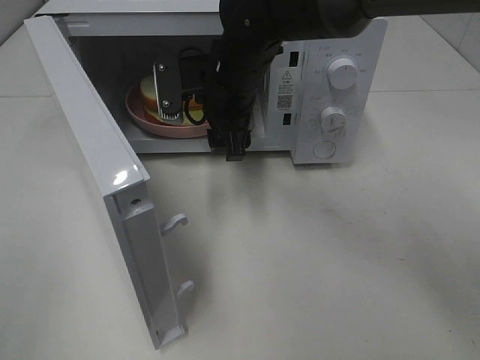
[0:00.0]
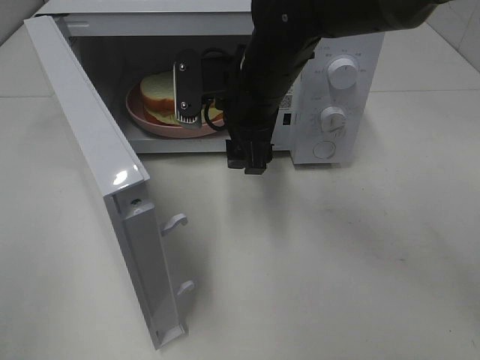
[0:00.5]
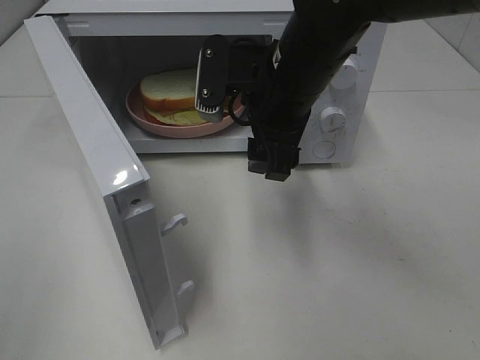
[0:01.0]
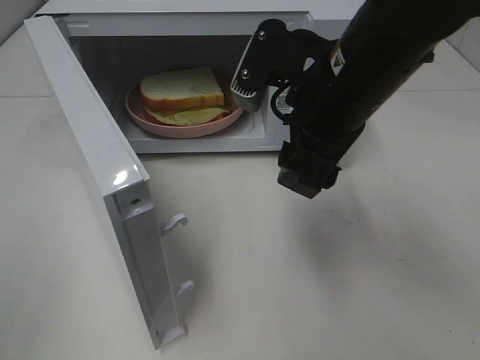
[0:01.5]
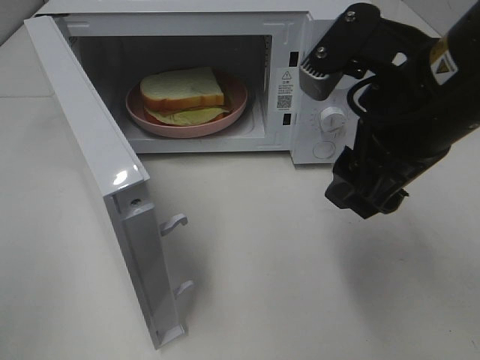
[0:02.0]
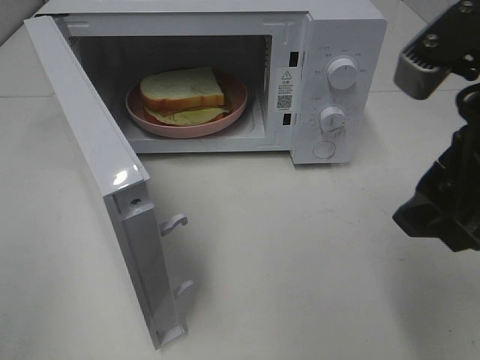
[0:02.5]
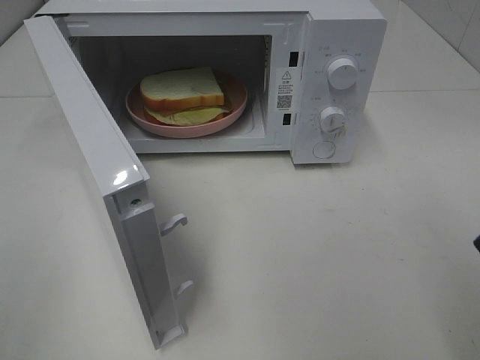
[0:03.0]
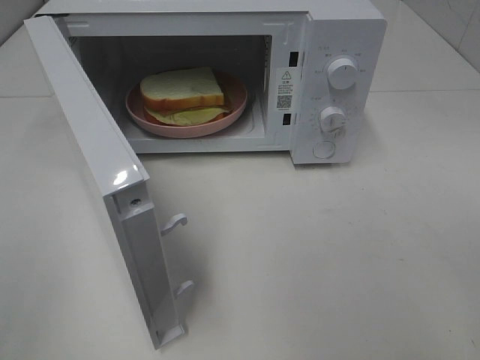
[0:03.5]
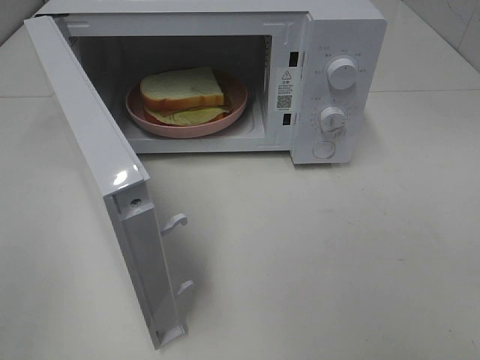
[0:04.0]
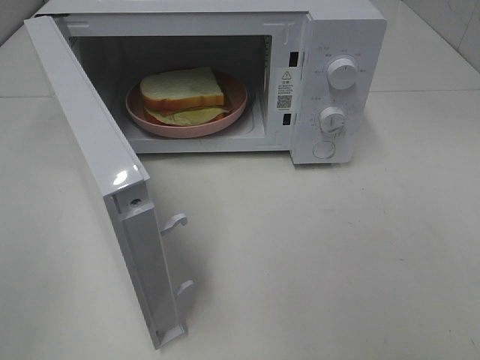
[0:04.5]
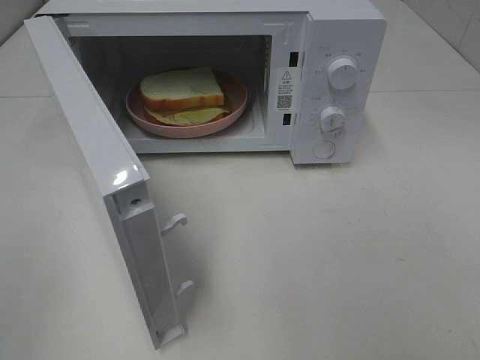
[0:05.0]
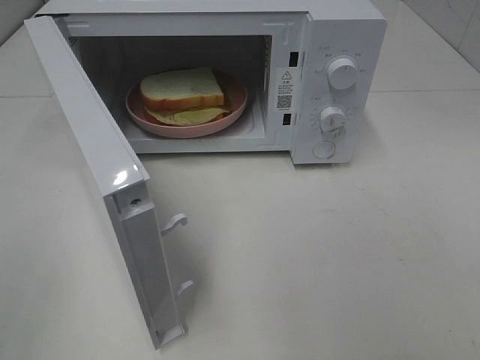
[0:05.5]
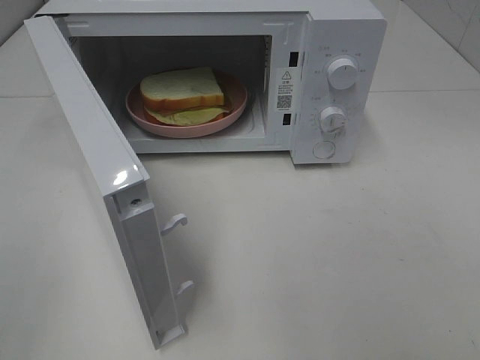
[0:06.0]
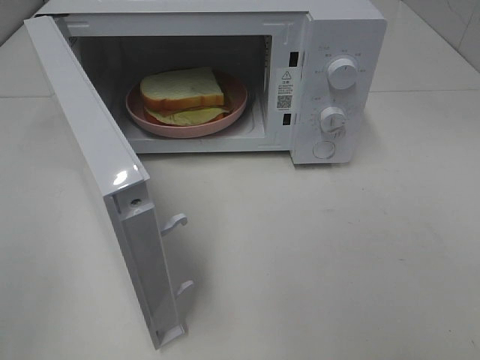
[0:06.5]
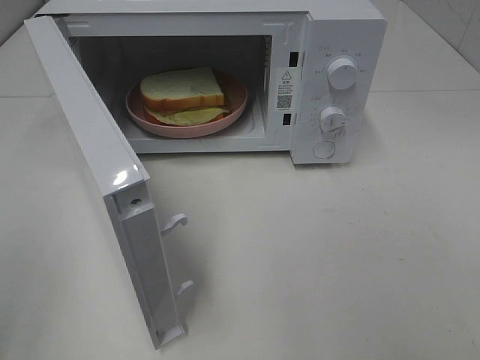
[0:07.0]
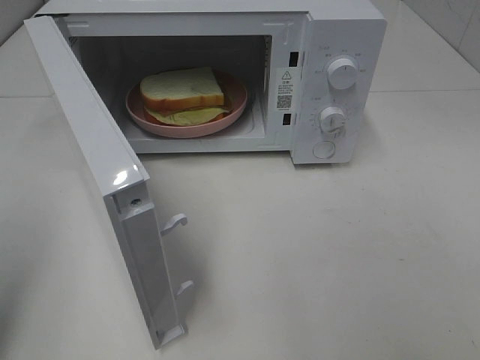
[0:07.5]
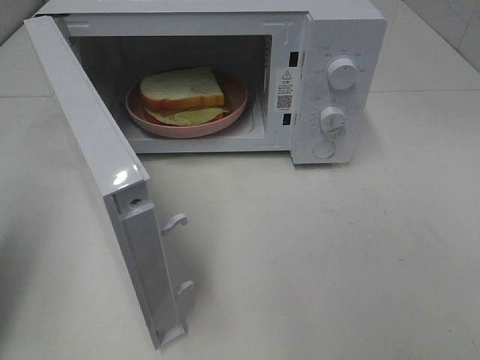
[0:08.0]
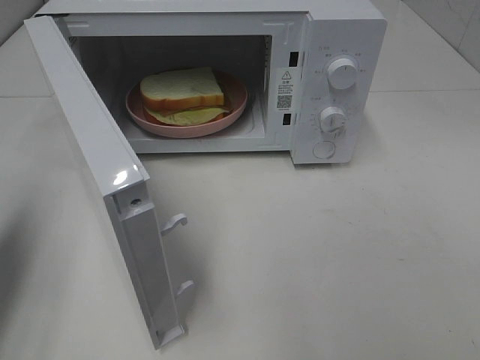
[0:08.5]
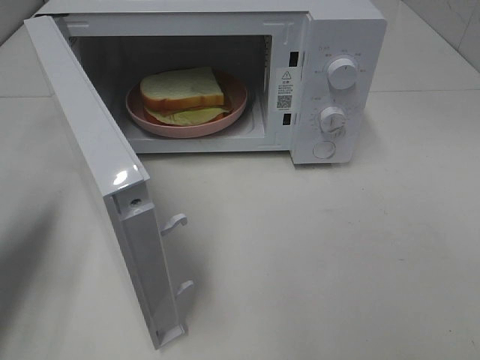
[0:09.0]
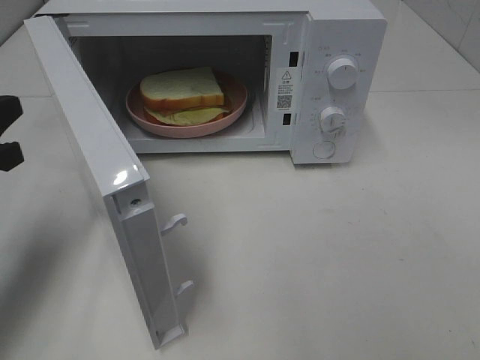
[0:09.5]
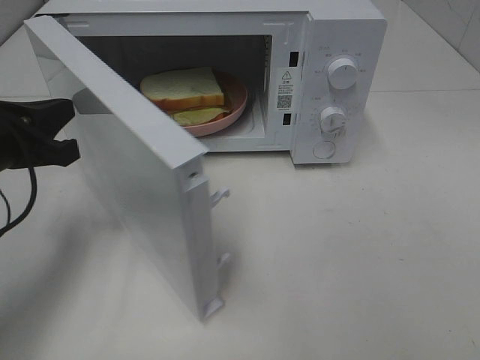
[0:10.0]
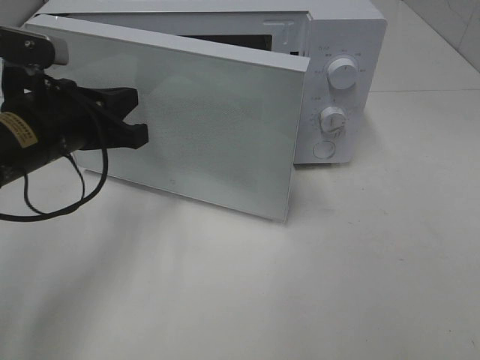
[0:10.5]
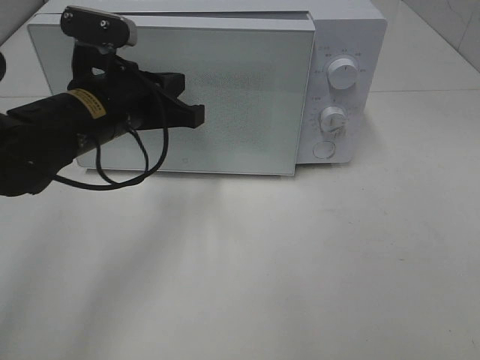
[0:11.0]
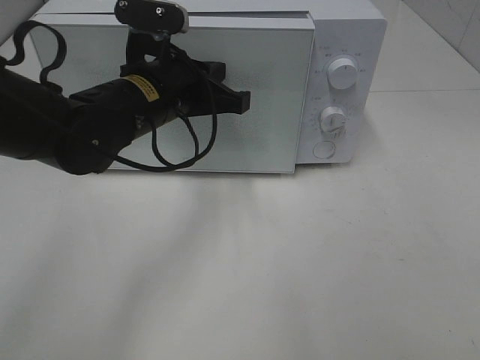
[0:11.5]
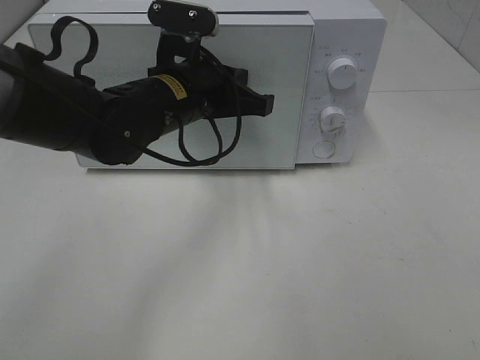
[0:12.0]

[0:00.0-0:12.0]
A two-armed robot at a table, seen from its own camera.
Task of the whole recording: Heat Sandwich.
0:00.0 to 0:02.0: The right gripper moves backward, to the right and upward, approximately 25 cm.
0:02.0 to 0:04.0: The right gripper moves backward and to the right, approximately 20 cm.
0:06.0 to 0:08.0: The left gripper is displaced forward by approximately 15 cm, and closes its fingers.
0:08.0 to 0:10.0: The left gripper travels forward, downward and to the right by roughly 15 cm.
0:10.0 to 0:12.0: The left gripper travels to the right and forward by about 20 cm.

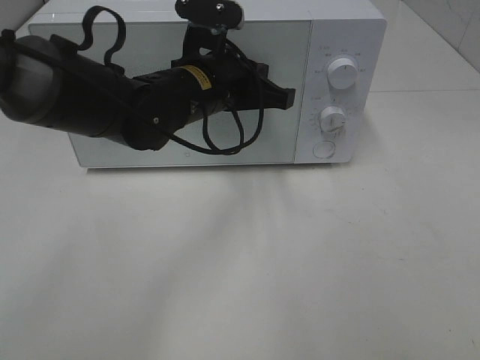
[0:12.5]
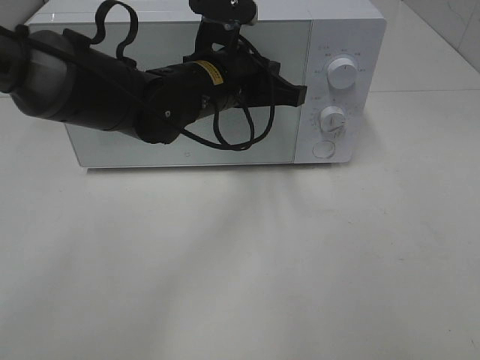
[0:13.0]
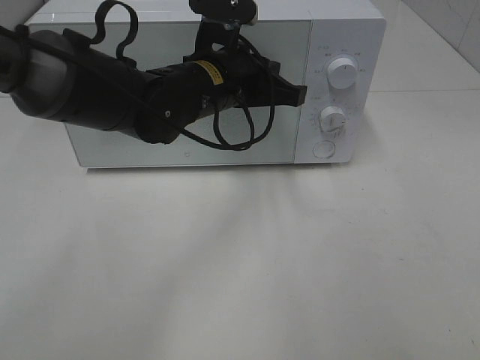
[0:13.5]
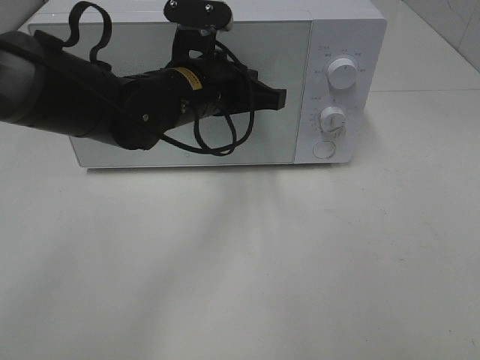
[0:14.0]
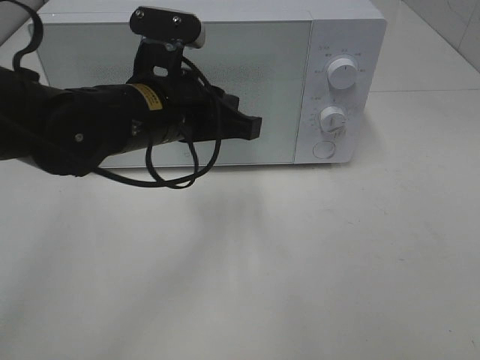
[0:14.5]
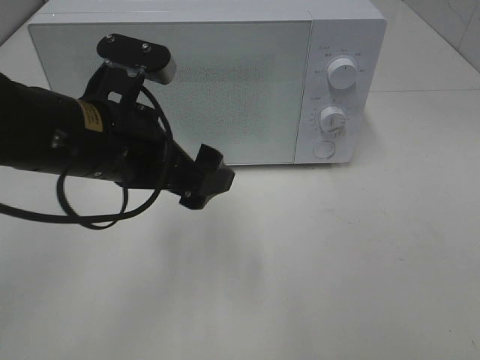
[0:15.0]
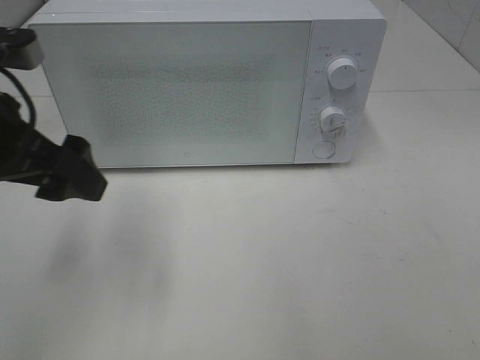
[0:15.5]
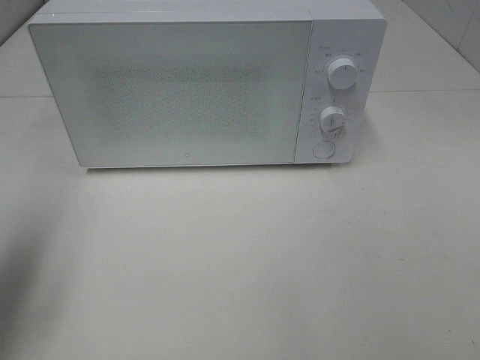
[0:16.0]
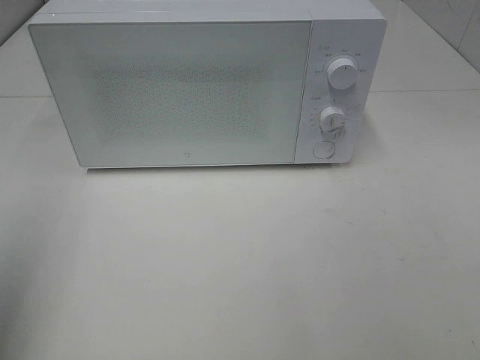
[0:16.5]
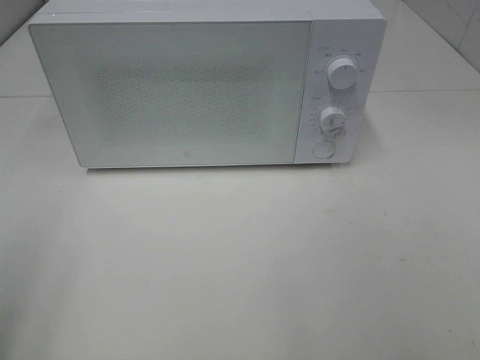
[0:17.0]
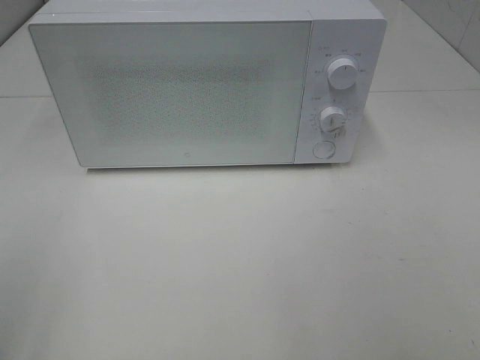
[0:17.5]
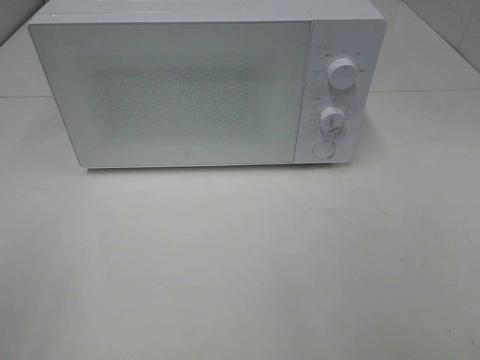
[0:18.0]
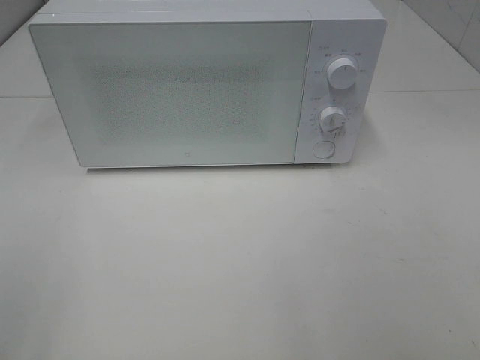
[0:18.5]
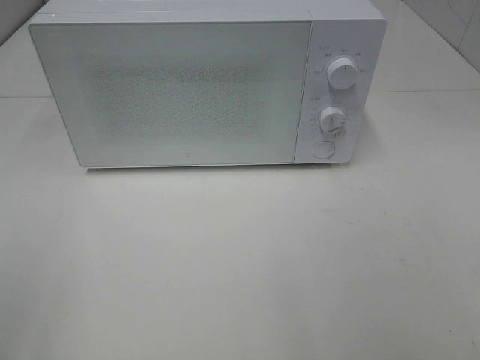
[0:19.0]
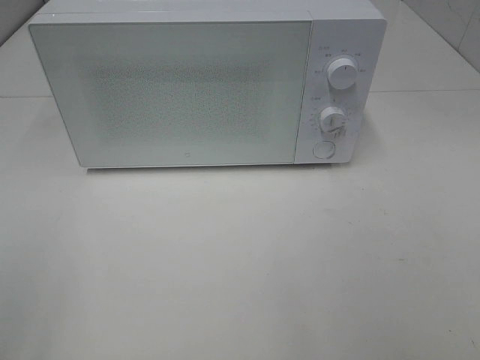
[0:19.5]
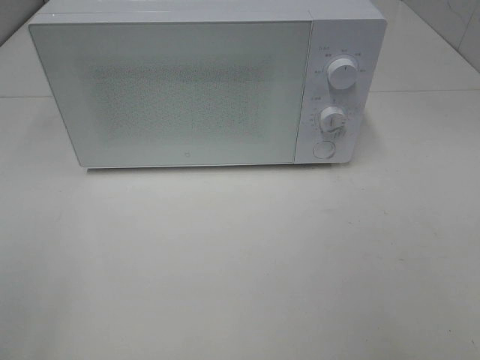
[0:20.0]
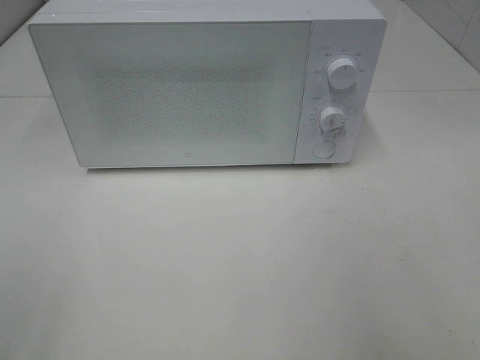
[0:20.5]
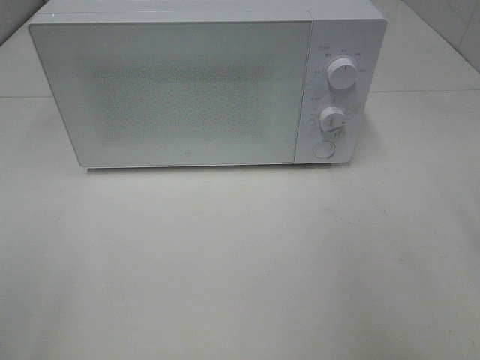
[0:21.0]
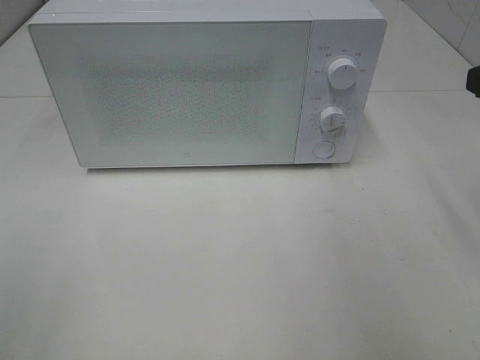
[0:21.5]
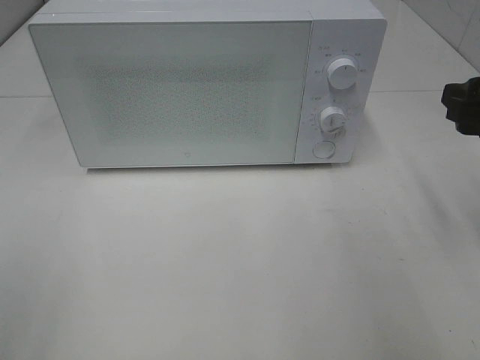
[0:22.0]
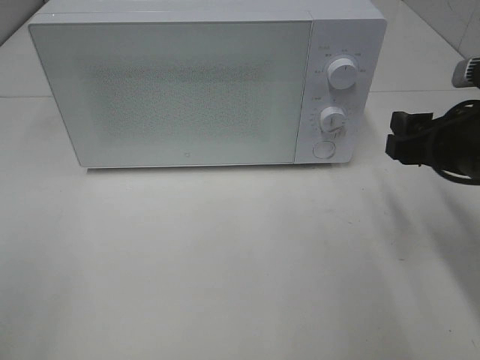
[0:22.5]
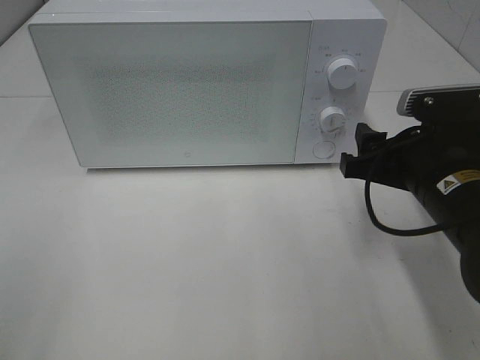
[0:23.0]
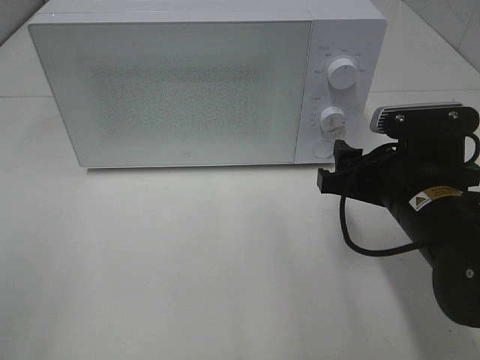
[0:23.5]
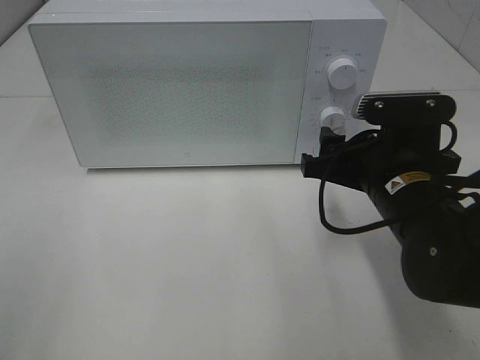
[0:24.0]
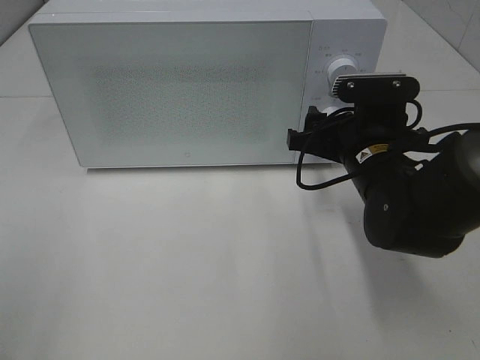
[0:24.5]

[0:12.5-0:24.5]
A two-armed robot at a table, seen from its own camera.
Task of the whole recording: Heat Sandwich.
Step, 0:12.5 to 0:14.5: Left hand: close the microwave door.
0:12.5 to 0:14.5: The left gripper travels backward by about 5 cm.
0:14.5 to 0:16.5: The left gripper shifts some 35 cm to the left, backward and upward, and opens its fingers.
0:16.5 to 0:18.5: The left gripper heads backward, covering some 10 cm.
0:20.5 to 0:22.5: The right gripper goes roughly 20 cm forward and downward.
0:22.5 to 0:24.5: The right gripper travels to the left, forward and downward by roughly 10 cm.

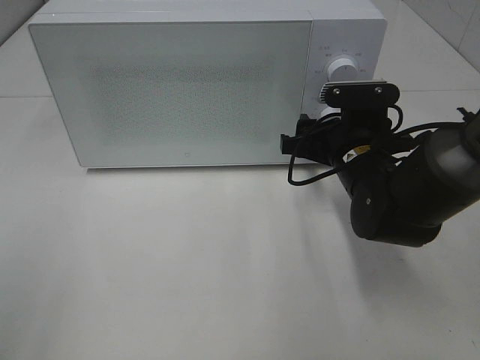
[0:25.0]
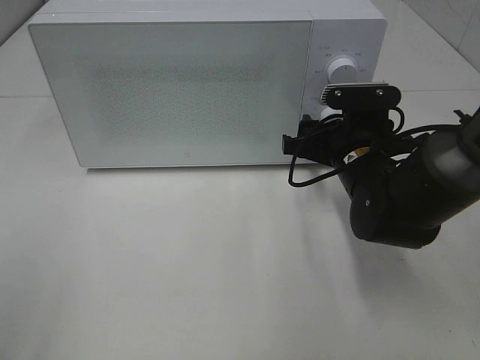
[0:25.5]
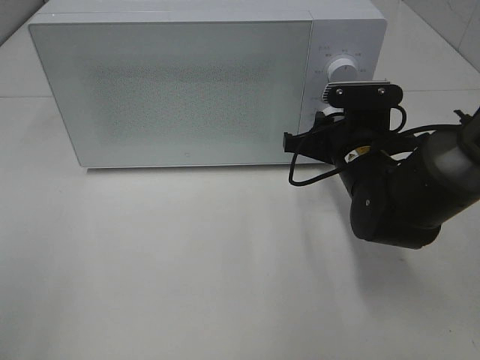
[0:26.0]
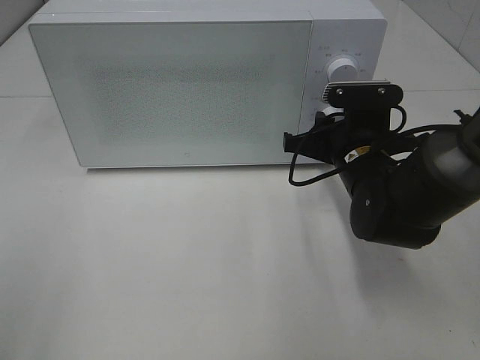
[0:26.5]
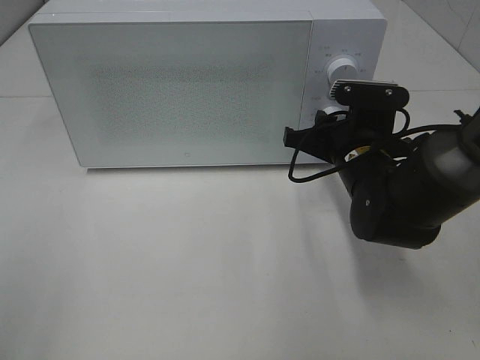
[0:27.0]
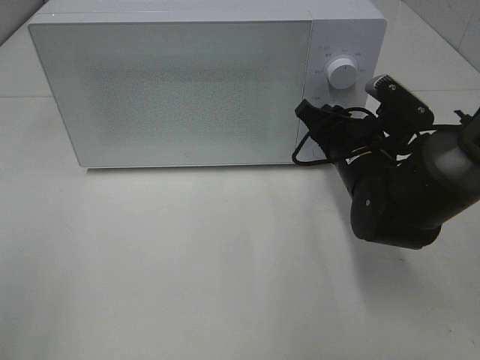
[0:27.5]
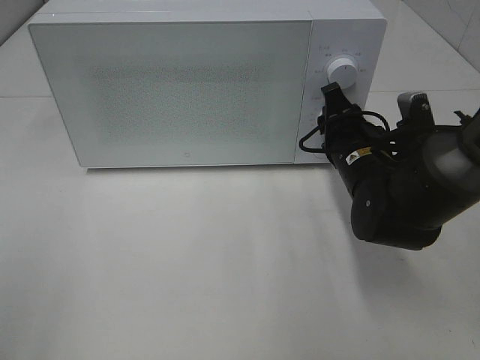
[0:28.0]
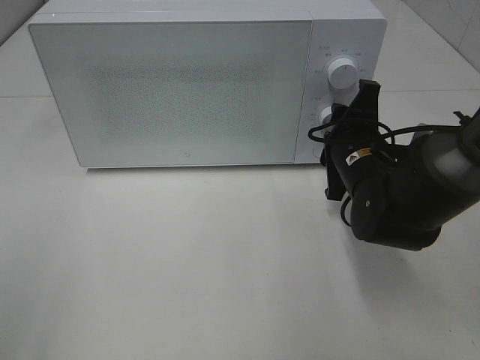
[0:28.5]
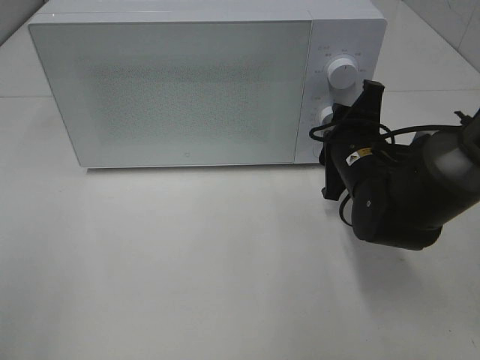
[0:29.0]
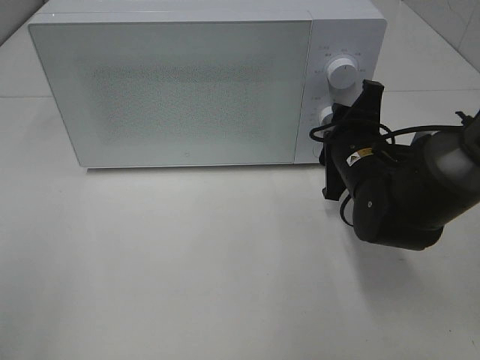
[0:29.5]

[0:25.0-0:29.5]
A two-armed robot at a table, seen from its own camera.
Task of the whole recording: Heat Sandwich.
0:25.0 to 0:27.0: The right gripper closes.
